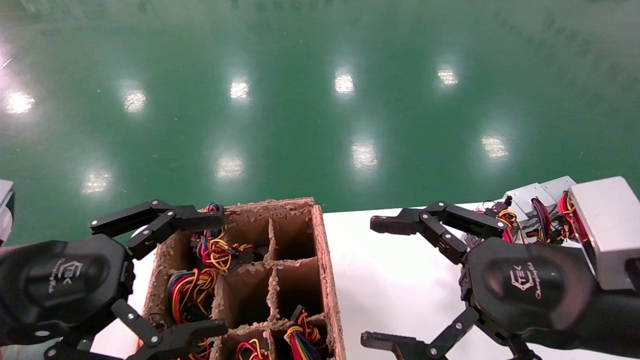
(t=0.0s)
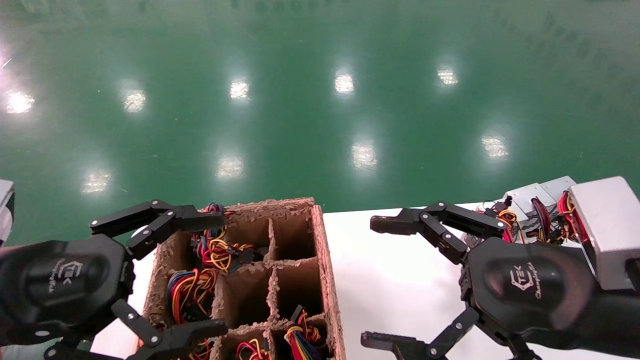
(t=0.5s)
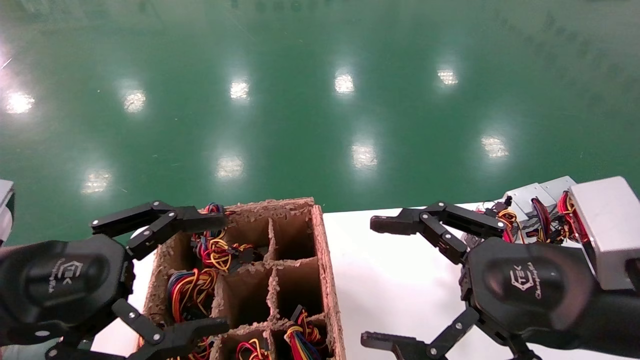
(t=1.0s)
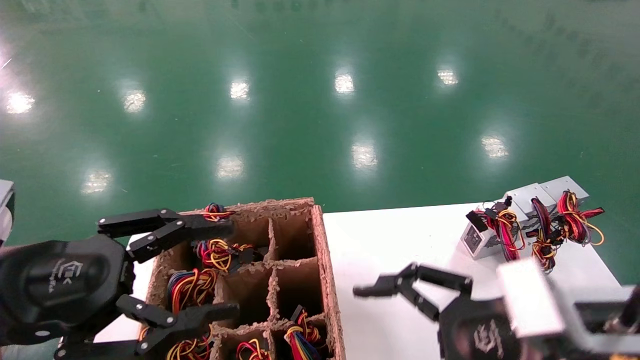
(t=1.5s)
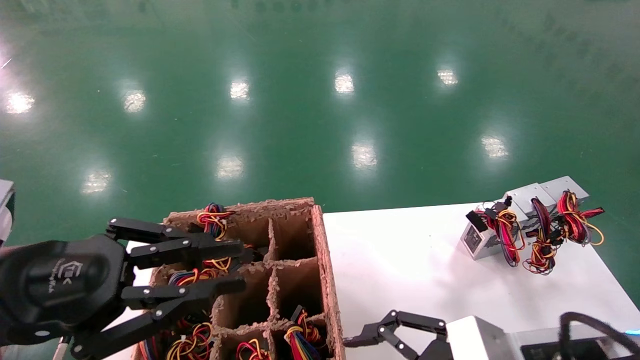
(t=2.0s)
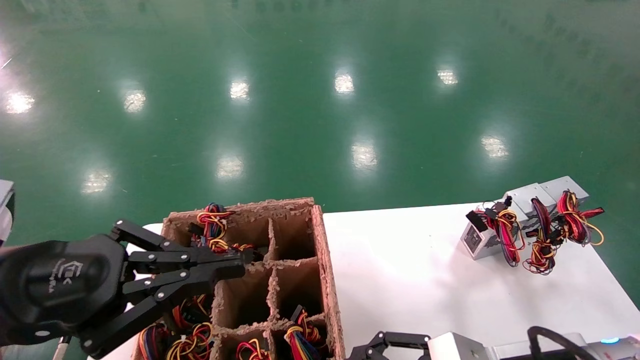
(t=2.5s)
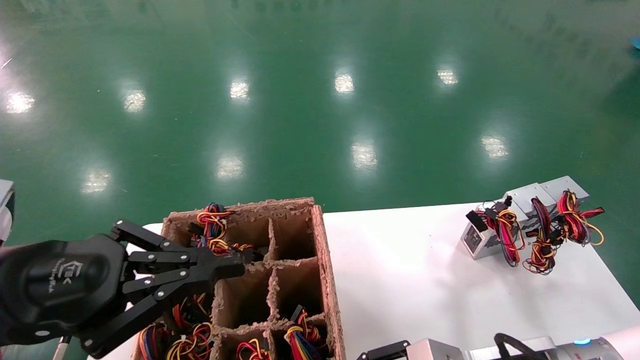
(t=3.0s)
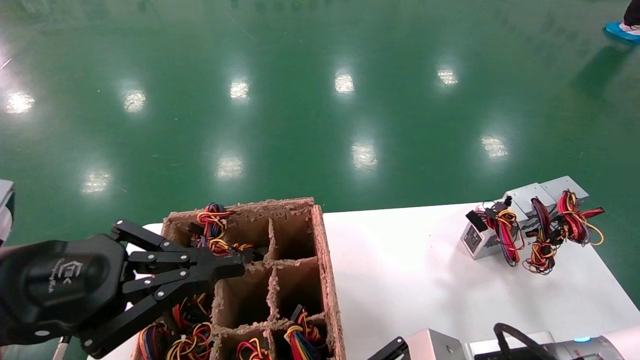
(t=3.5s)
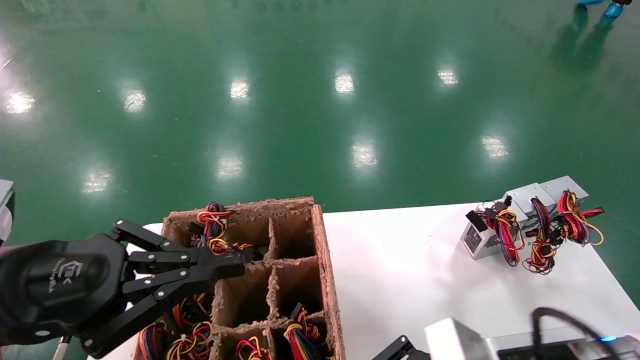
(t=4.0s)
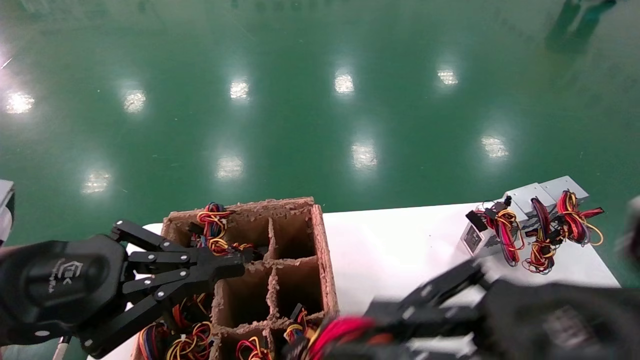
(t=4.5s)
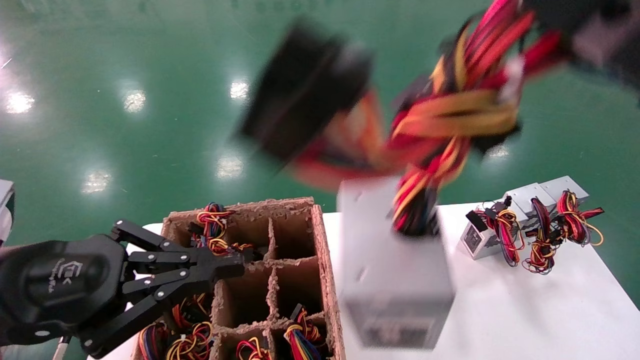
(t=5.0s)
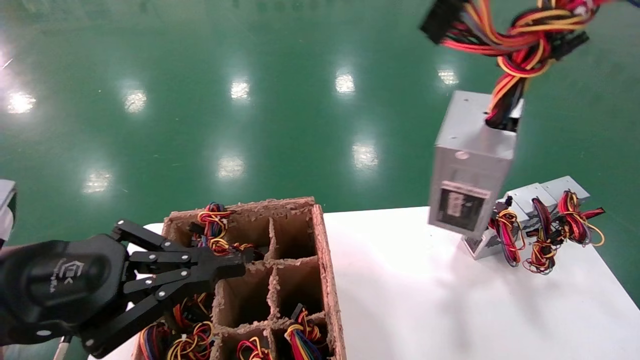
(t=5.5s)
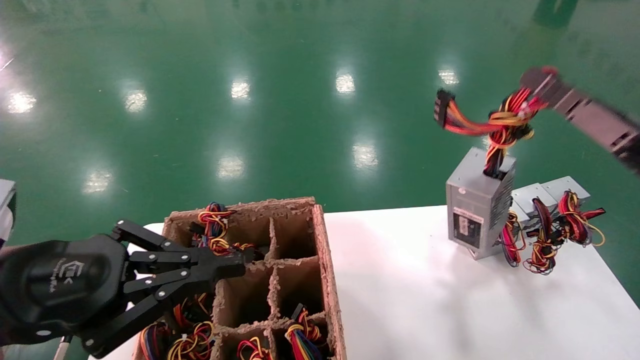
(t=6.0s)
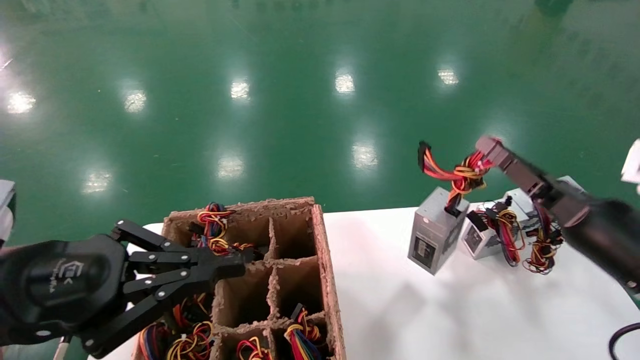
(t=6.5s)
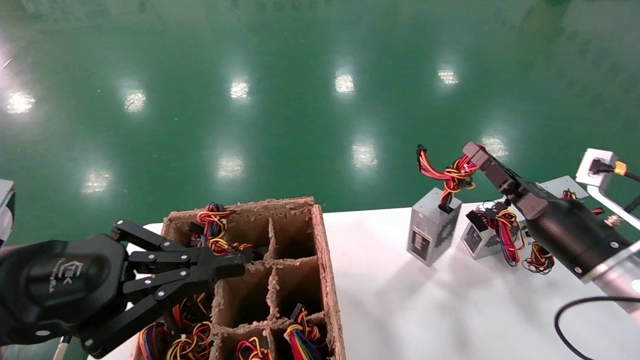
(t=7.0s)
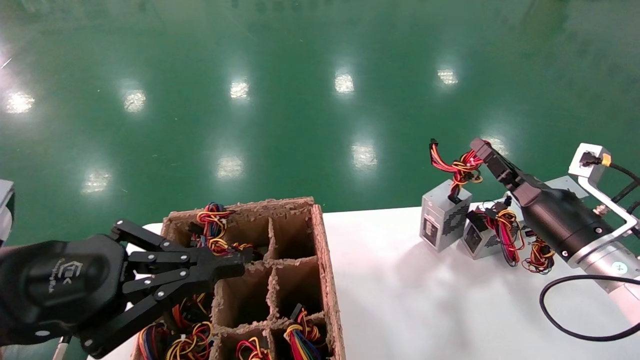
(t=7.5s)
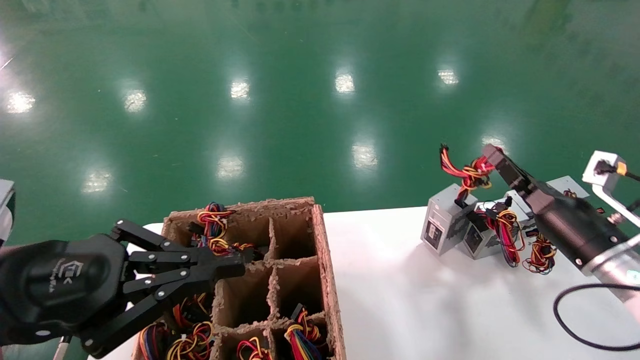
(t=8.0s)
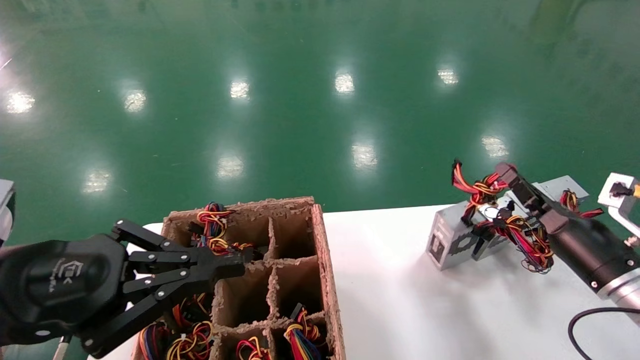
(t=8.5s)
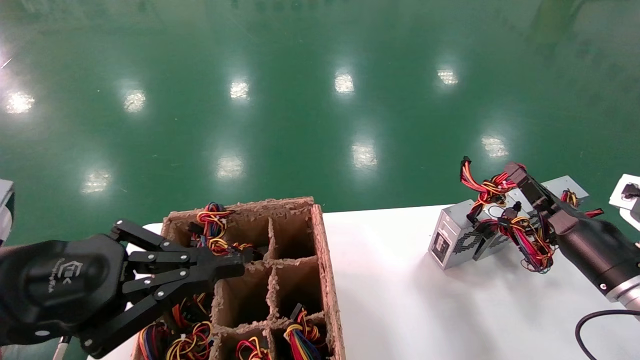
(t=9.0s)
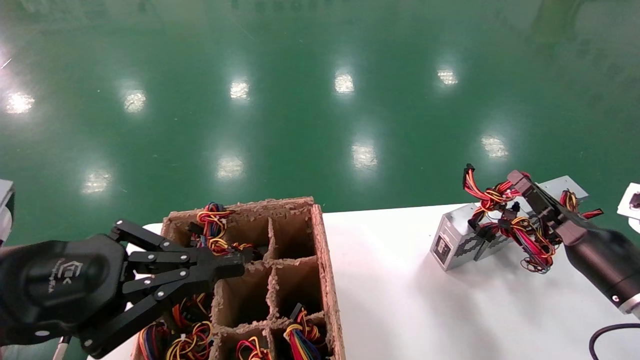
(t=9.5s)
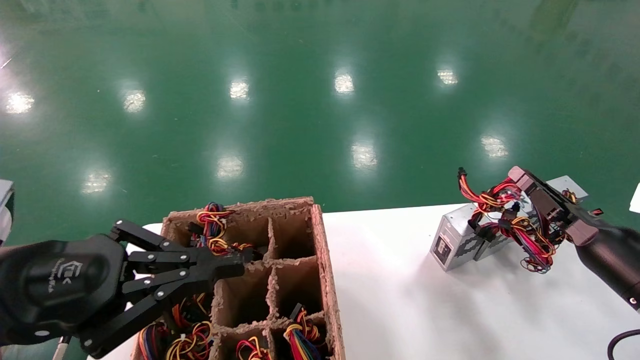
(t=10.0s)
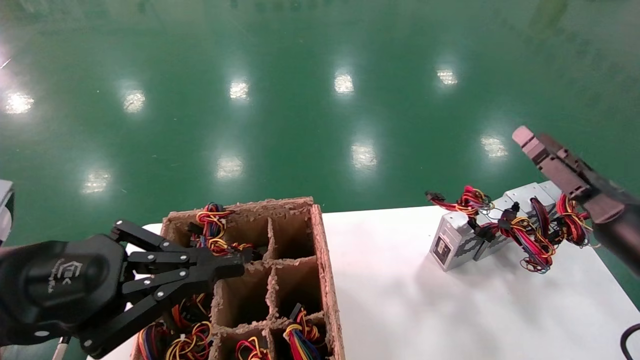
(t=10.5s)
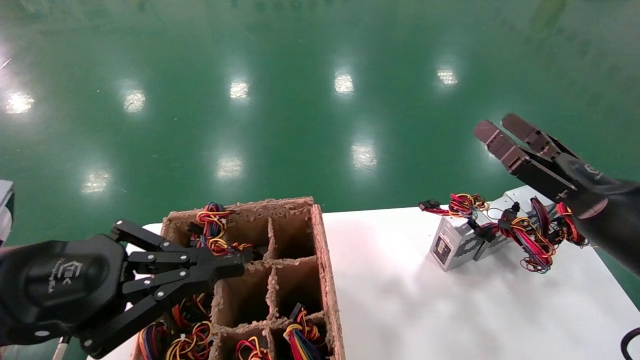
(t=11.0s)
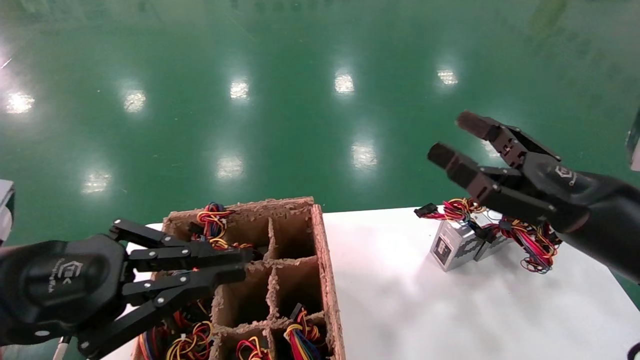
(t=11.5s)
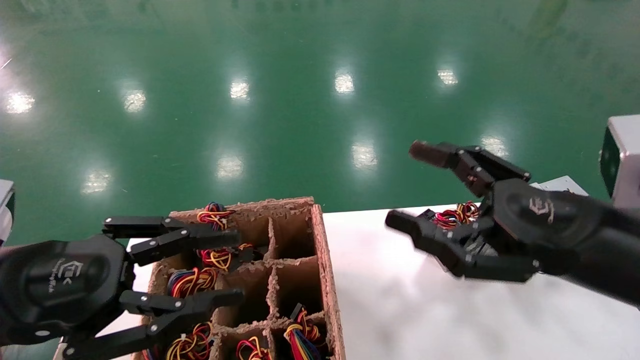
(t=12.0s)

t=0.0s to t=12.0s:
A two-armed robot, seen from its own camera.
Step, t=1.5s to t=3.5s: Grab the main unit power supply from the containment box.
Step, t=4.0s to t=10.0s: Place the main unit power supply in the designated area.
t=0.0s to t=2.0s: The right gripper heads downward, covering roughly 10 cm, while the left gripper closes its fingers.
t=2.0s to t=4.0s: The right gripper closes its fingers.
t=4.0s to t=6.0s: The right gripper shifts roughly 20 cm to the right and upward.
t=6.0s to t=8.0s: The right gripper shifts some 20 cm forward and downward.
t=8.0s to t=10.0s: The right gripper shifts by some 5 cm.
t=10.0s to t=12.0s: The right gripper heads to the left, upward and backward, covering approximately 20 cm, and opens up.

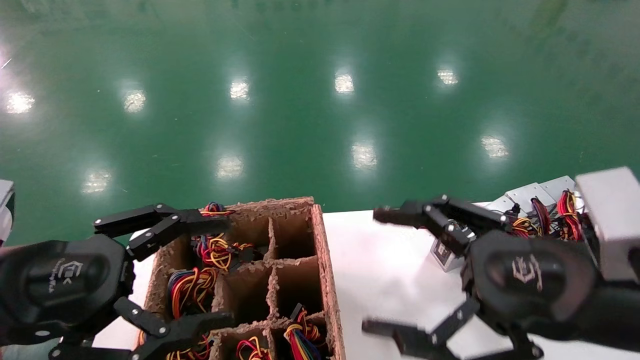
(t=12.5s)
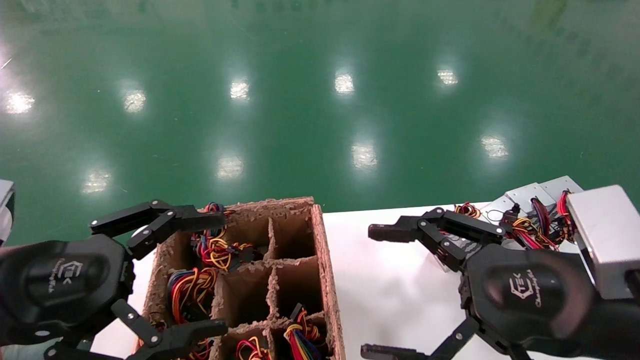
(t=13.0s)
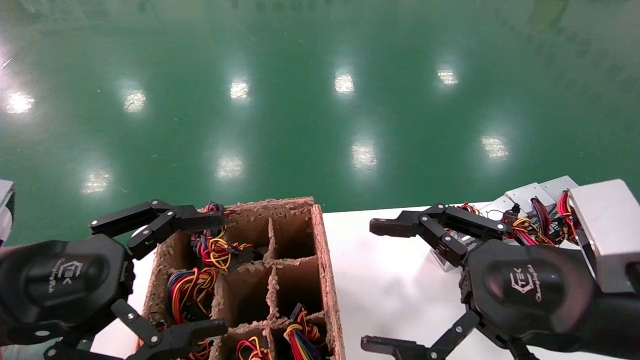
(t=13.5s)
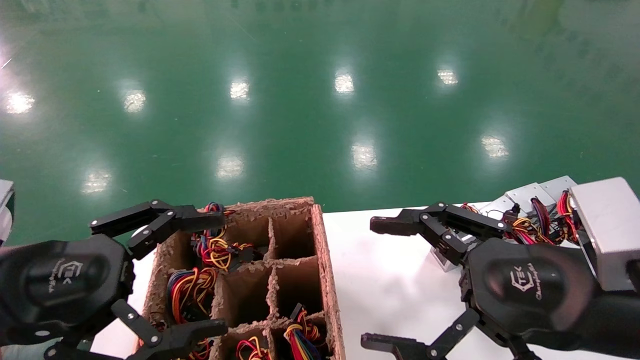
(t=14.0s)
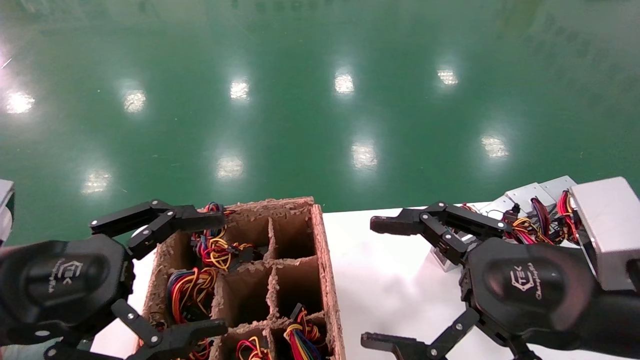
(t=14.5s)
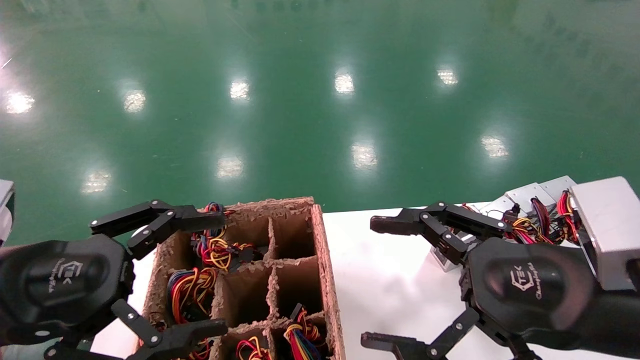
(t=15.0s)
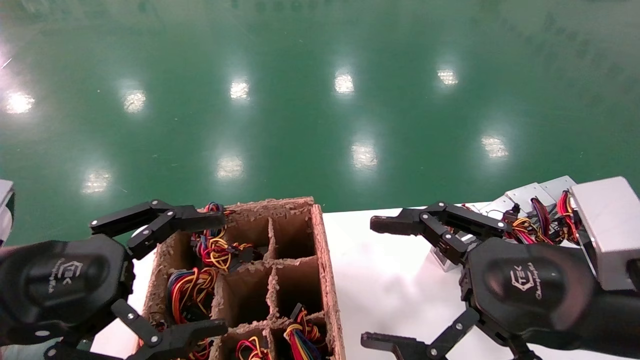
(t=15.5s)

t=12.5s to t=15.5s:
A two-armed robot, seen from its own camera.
t=12.5s to t=15.5s: The two grippers keep their place.
